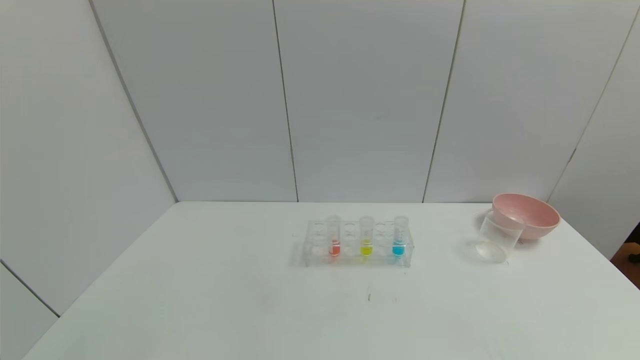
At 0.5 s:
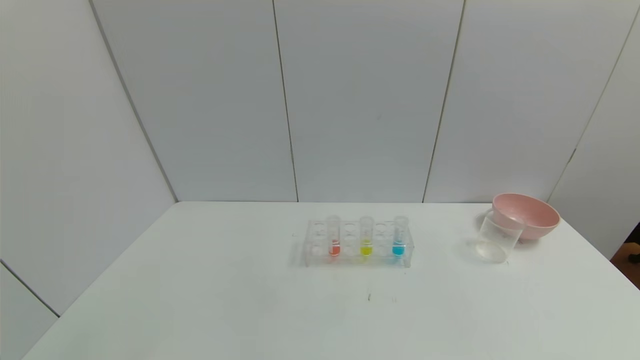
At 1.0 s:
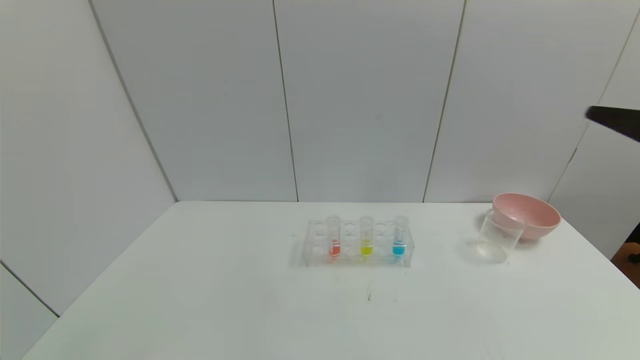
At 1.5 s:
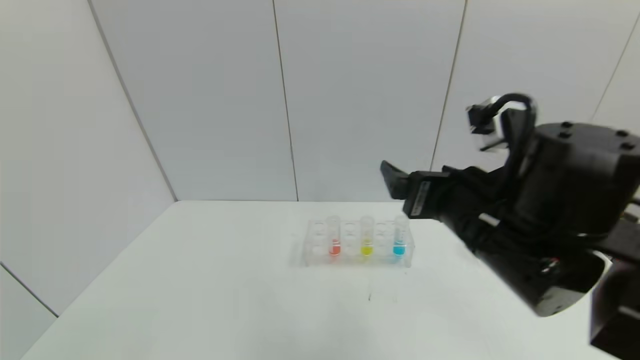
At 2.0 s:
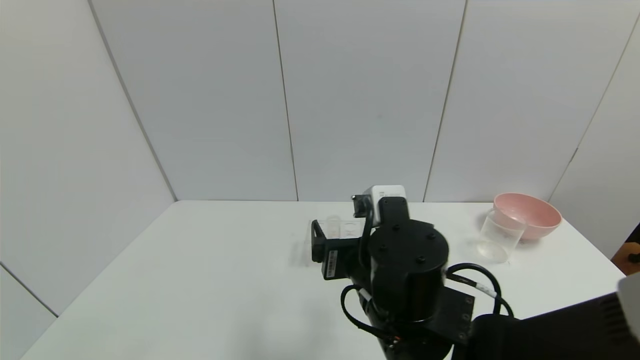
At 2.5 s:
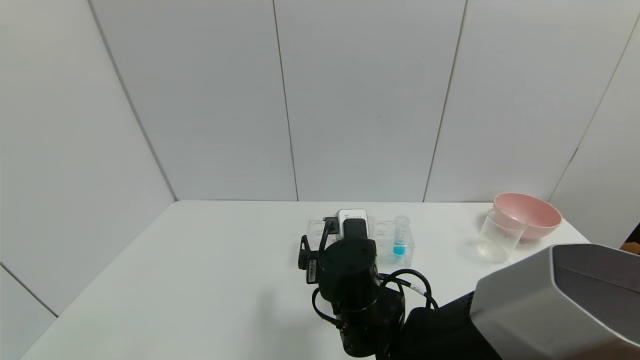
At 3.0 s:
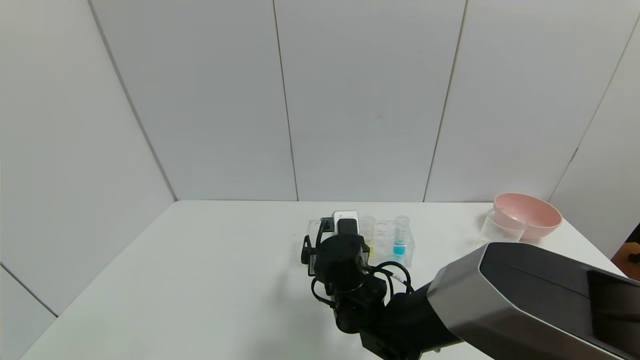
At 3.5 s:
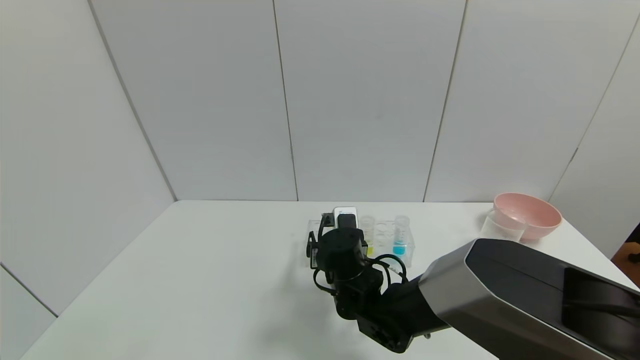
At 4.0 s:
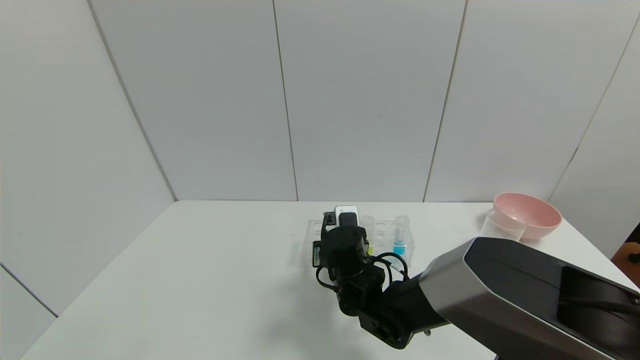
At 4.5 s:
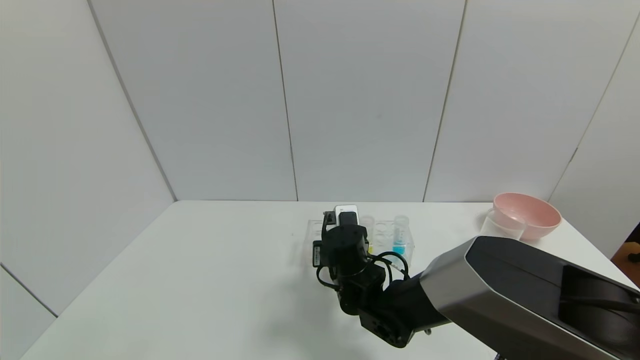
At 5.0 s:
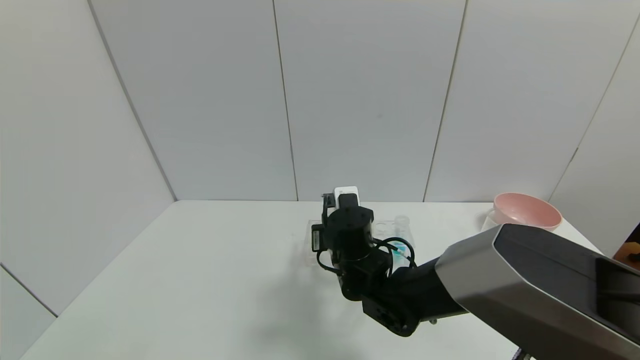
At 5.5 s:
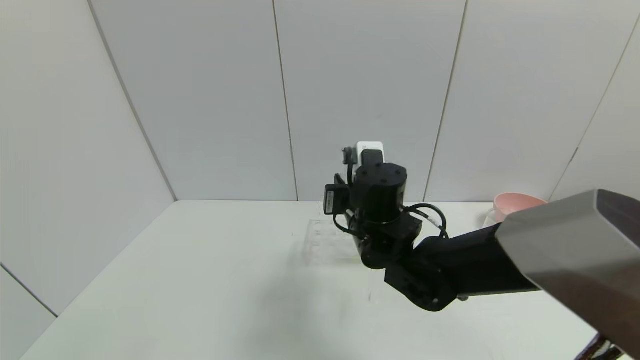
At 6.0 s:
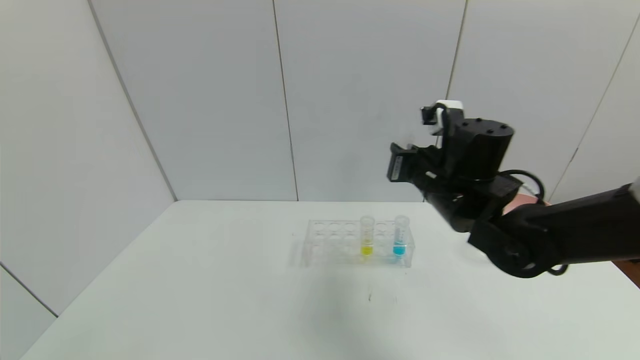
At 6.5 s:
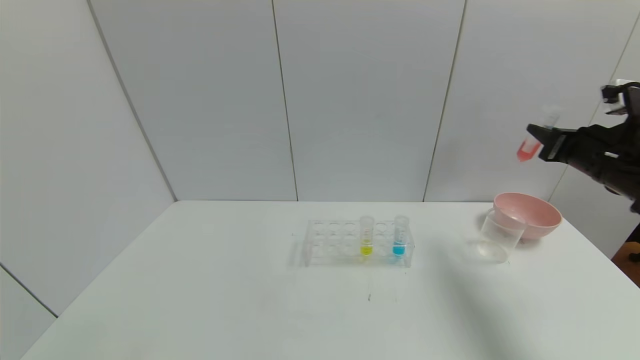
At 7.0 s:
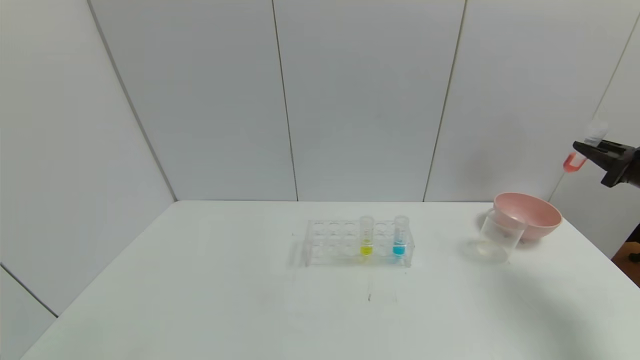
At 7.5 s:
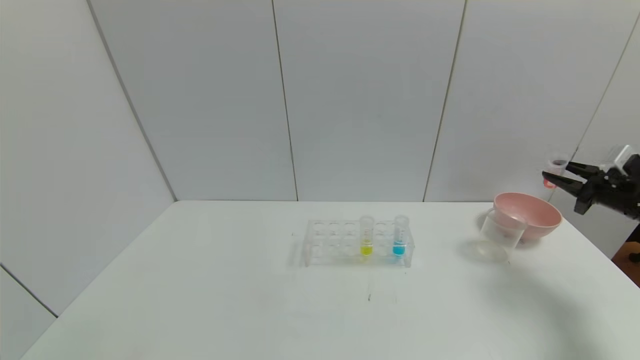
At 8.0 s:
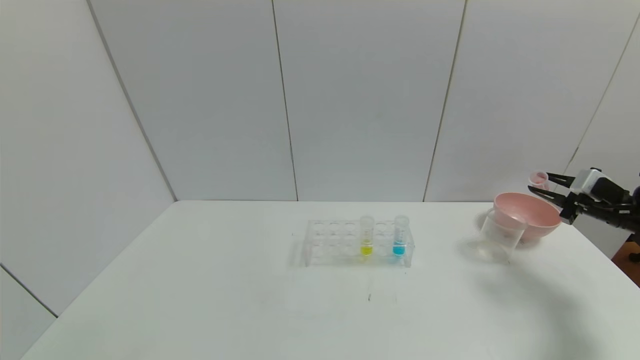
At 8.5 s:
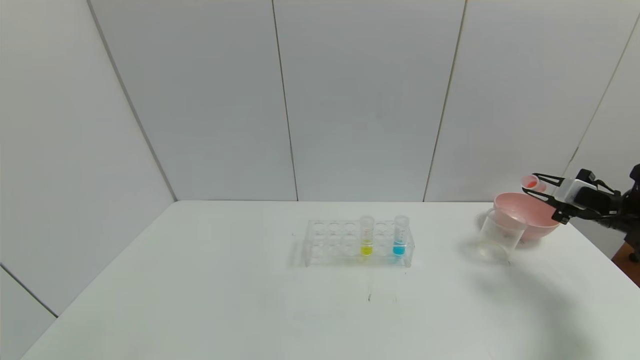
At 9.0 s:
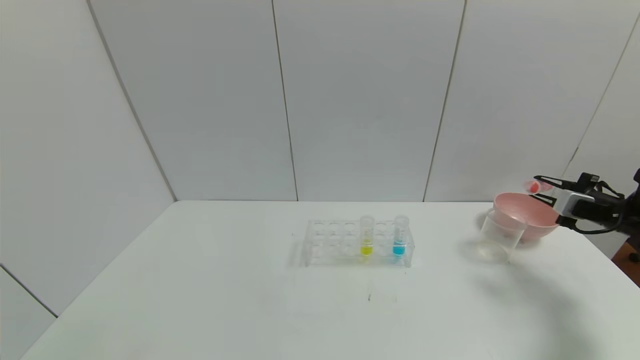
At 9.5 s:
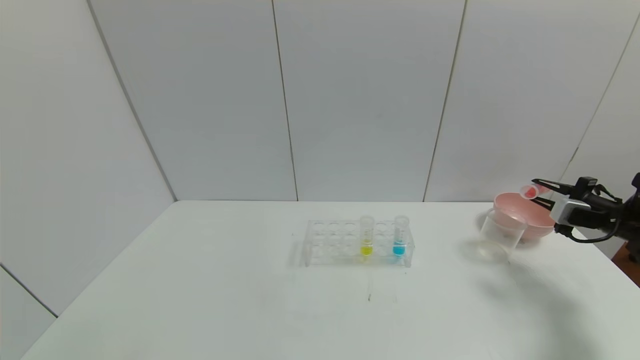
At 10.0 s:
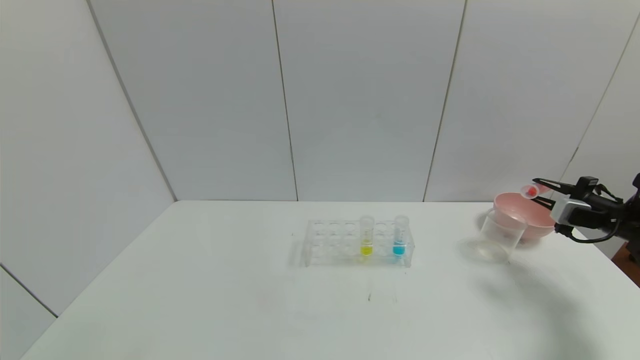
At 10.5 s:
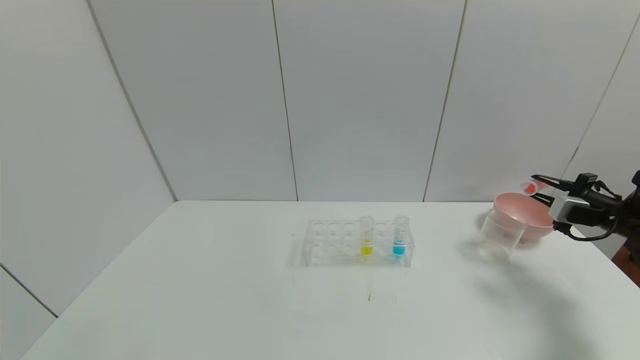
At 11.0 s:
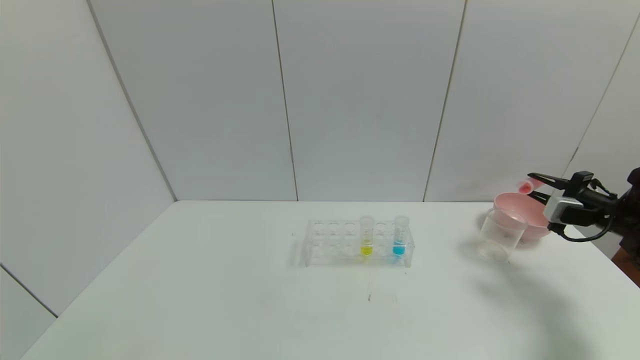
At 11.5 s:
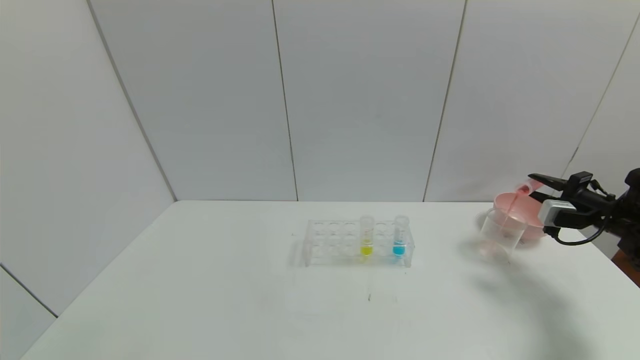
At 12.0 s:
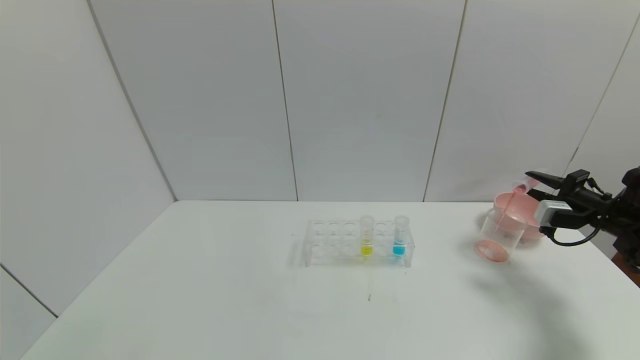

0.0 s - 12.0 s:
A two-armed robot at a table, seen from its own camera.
Task of the whole recording: pick up the test tube with yellow pigment and the test tube with red pigment by grippers and pour them into the beaker.
Step, 0.0 s - 4.0 s: Grasp the red reagent with the right gripper.
0.0 s - 2.0 s: The right gripper is displaced to the left and forward by some 40 cm.
2.0 s - 4.0 s: The right gripper goes roughly 15 cm forward and downward, and closes.
4.0 s - 6.0 s: The right gripper moves to the right and upward, approximately 25 cm.
6.0 s - 8.0 s: The right gripper shifts about 30 cm to the right.
10.0 s - 12.0 s: The grippers move only a little.

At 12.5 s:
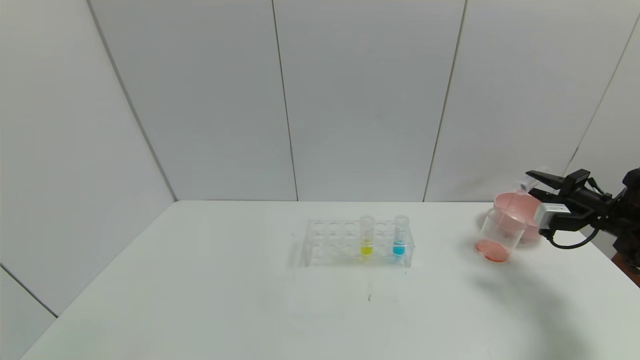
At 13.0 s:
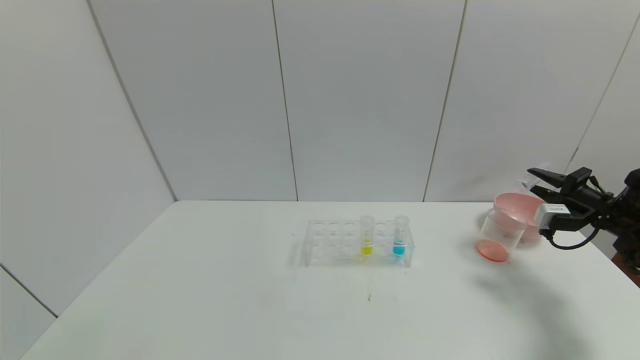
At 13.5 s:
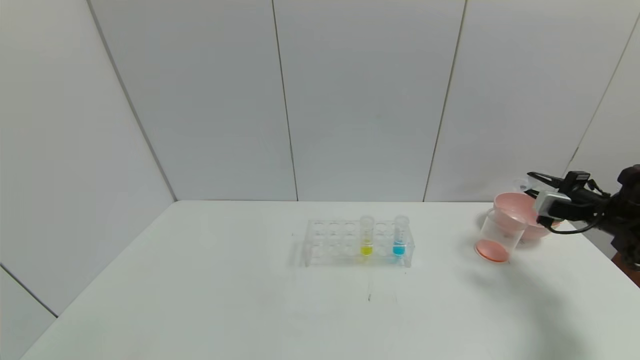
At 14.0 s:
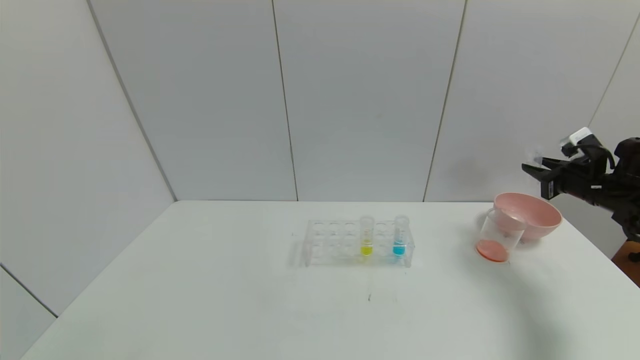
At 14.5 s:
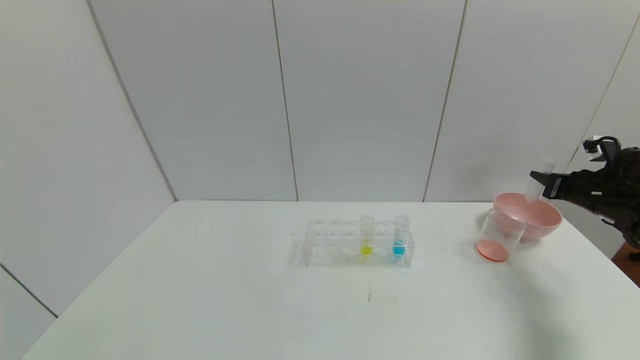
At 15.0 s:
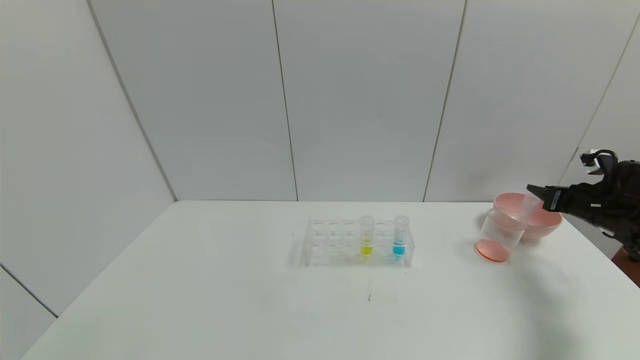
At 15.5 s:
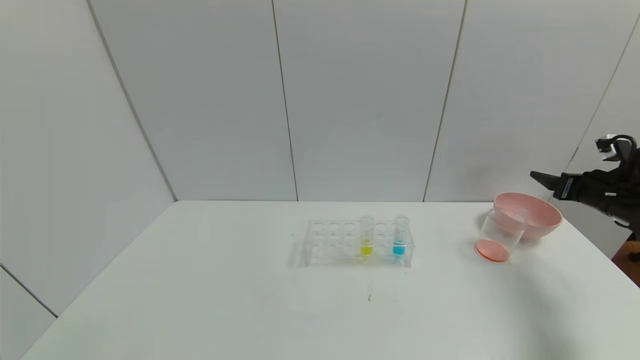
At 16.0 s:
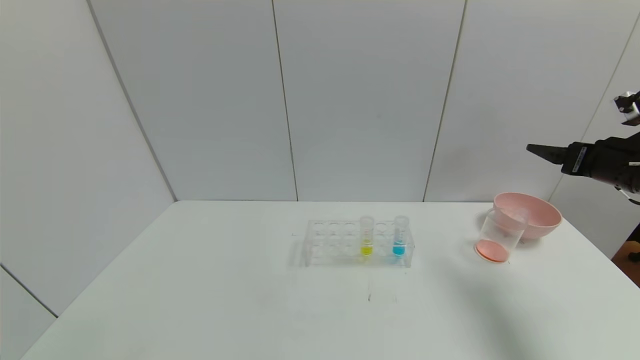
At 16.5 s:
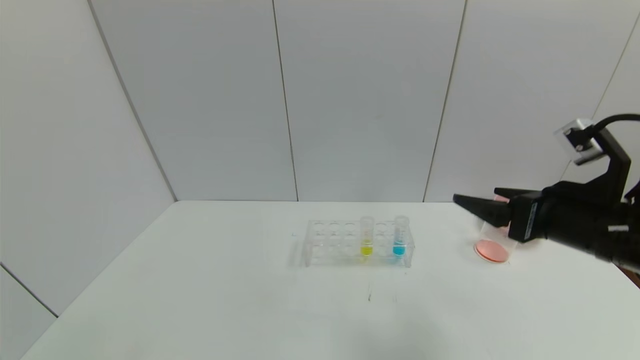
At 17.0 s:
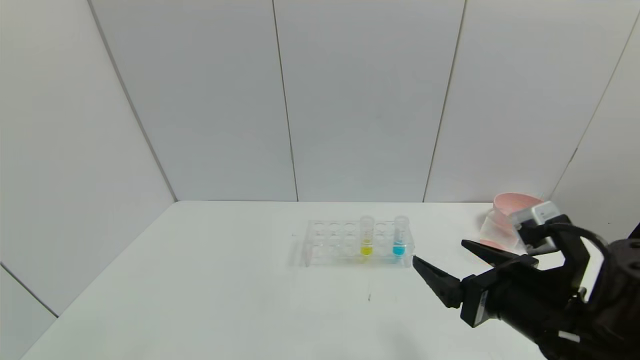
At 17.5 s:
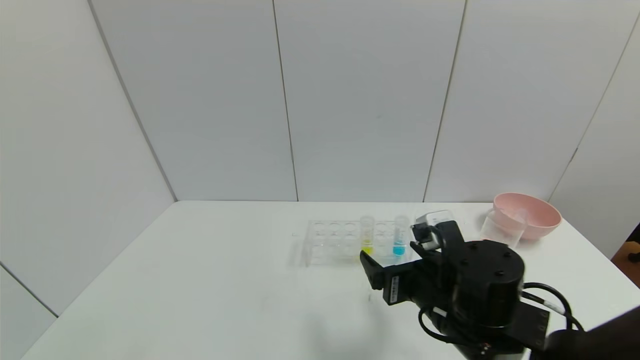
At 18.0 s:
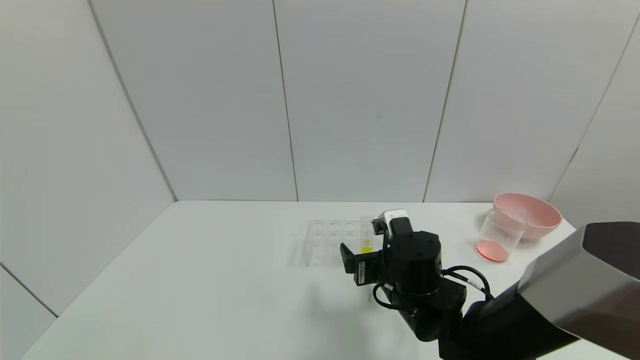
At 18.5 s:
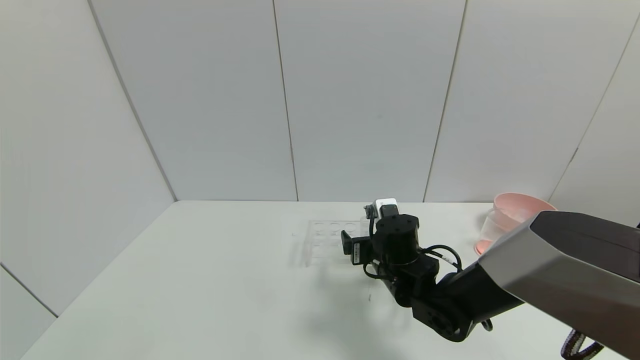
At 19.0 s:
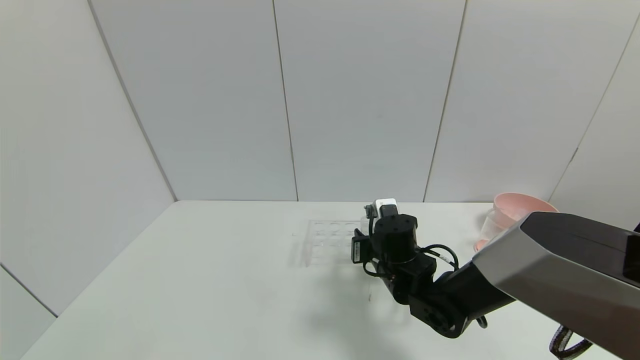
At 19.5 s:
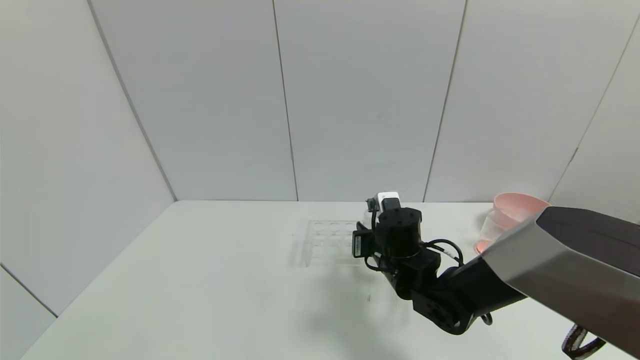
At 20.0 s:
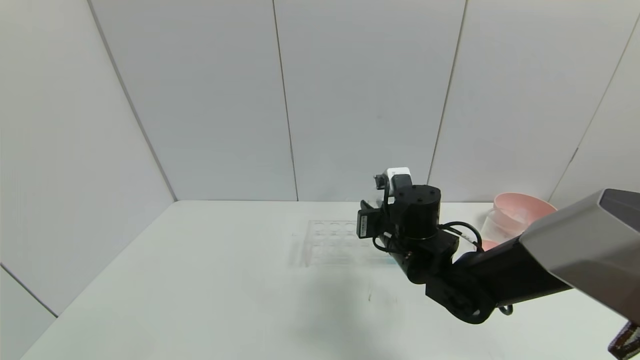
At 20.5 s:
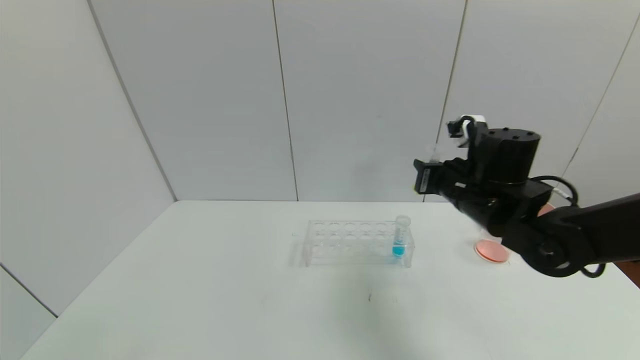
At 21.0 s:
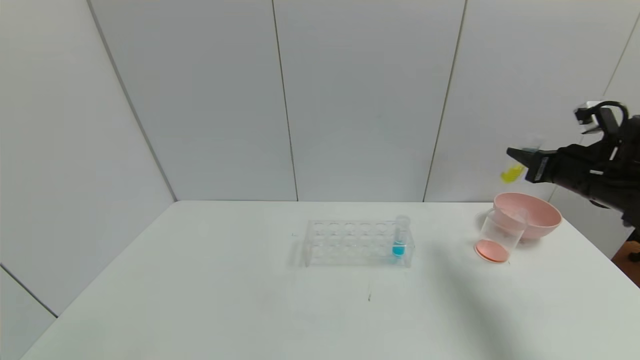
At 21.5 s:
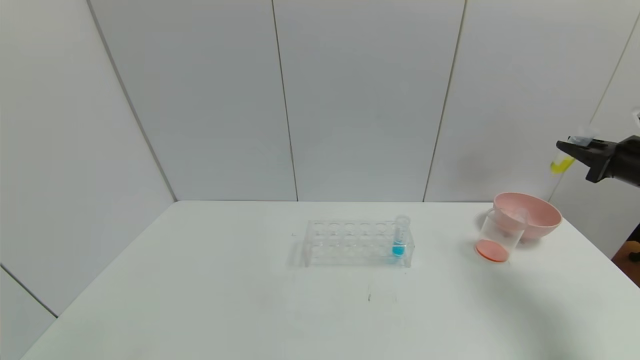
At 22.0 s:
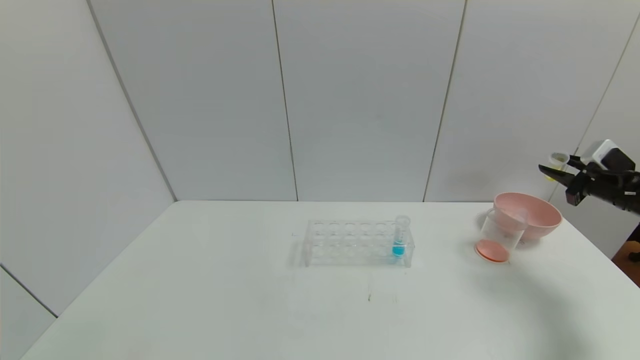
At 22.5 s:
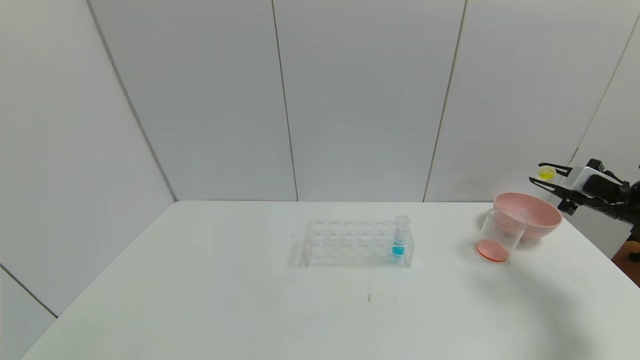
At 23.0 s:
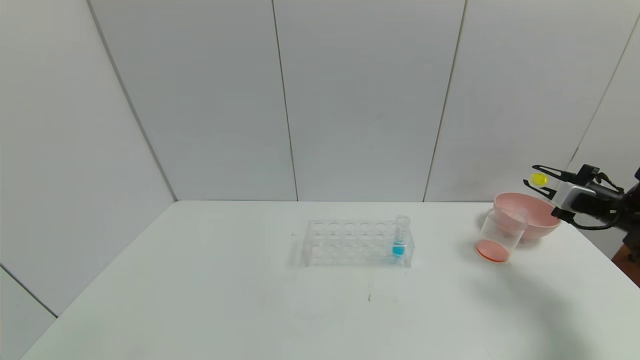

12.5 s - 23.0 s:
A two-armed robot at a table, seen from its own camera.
Task of the whole recording: pick up the test tube with yellow pigment and the test tube with red pigment by grippers and pour them into the beaker.
Step, 13.5 s - 15.0 s: Place the test tube into the bowl with the right gripper.
Step, 15.5 s - 19.0 s: Grasp the yellow reagent with the right gripper.
14.5 s - 16.5 s: The right gripper moves to the left and backward, approximately 30 cm, and opens its fingers.
16.5 s - 19.0 s: The right gripper shifts roughly 25 cm to the left, downward and forward, and closes its fingers.
19.0 s - 21.0 s: The right gripper goes roughly 35 cm to the right and upward.
21.0 s - 23.0 s: The right gripper heads to the right and downward, covering some 10 cm.
